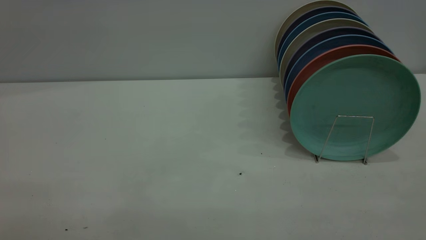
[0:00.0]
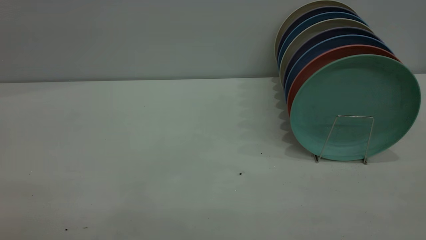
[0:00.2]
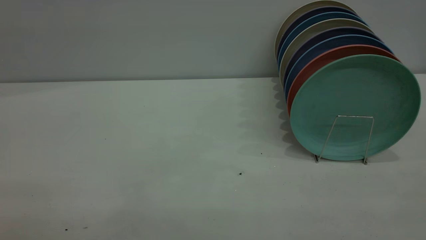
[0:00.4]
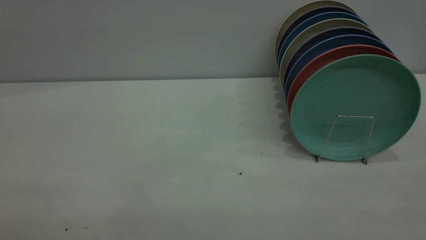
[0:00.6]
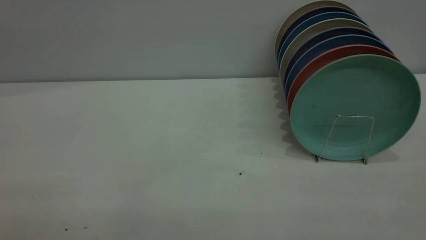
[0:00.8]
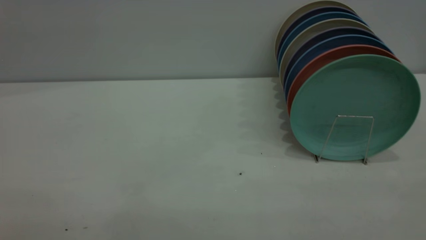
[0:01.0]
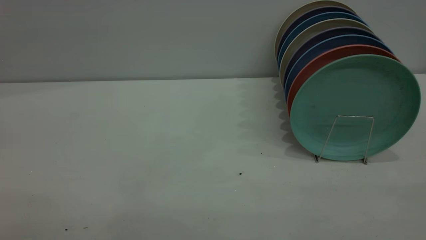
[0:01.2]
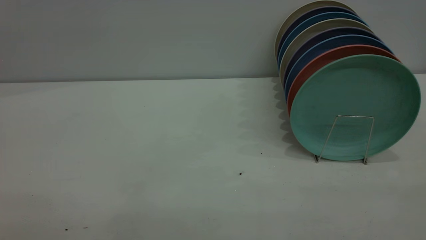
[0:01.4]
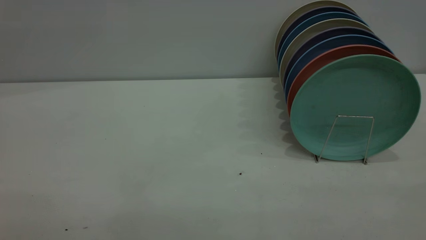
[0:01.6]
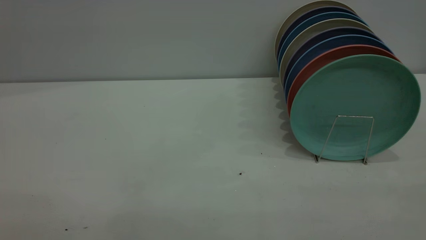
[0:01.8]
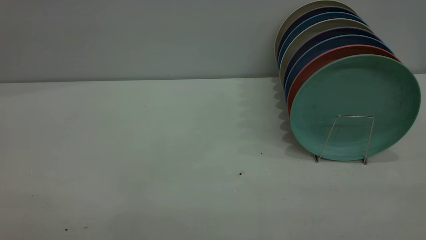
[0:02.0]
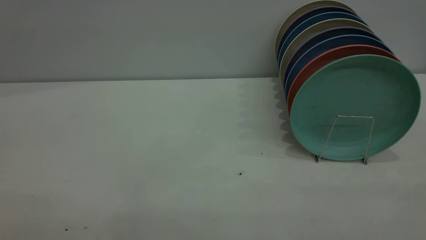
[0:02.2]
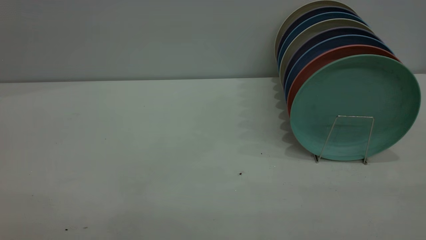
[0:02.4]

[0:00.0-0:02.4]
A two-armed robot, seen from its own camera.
Task of the whole recording: the left gripper grasp the green plate, the left gripper pass the green plate to the right gripper, and the right gripper place the green plate on the plate rack.
0:01.2 to 0:02.4: Neither gripper changes place.
